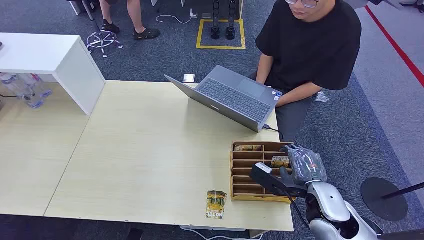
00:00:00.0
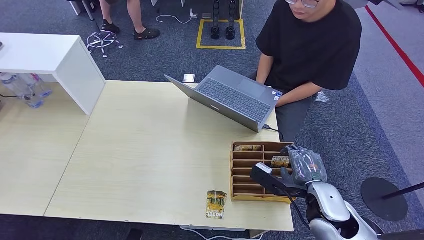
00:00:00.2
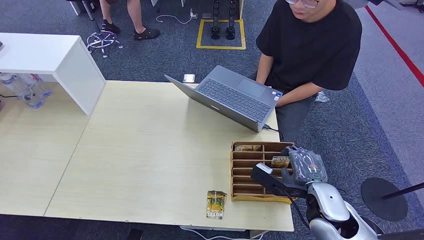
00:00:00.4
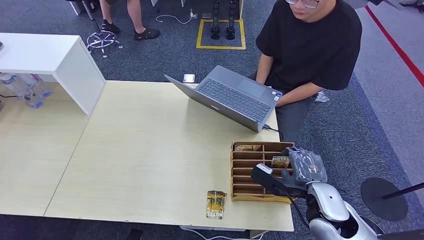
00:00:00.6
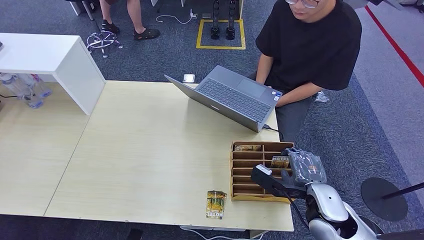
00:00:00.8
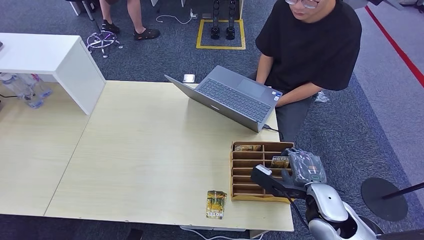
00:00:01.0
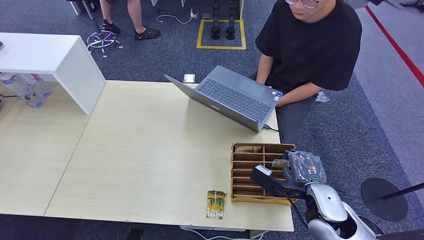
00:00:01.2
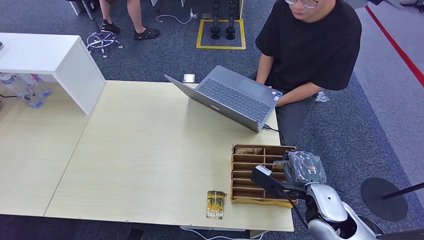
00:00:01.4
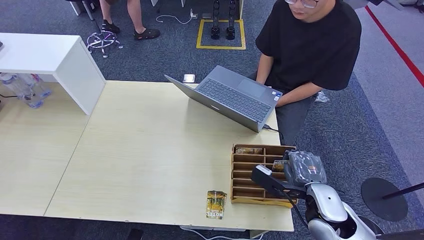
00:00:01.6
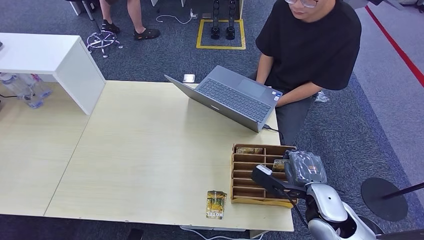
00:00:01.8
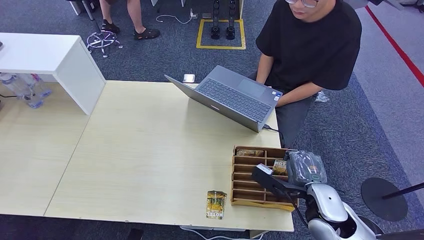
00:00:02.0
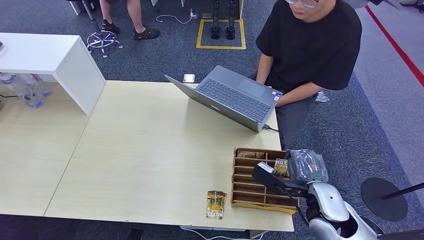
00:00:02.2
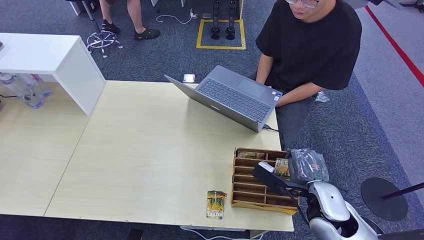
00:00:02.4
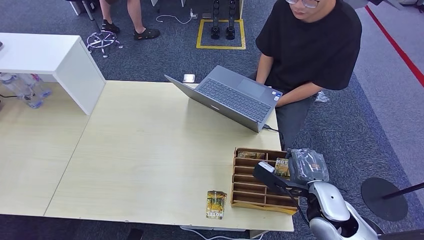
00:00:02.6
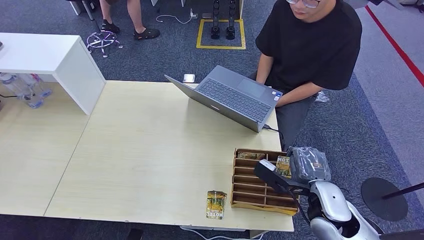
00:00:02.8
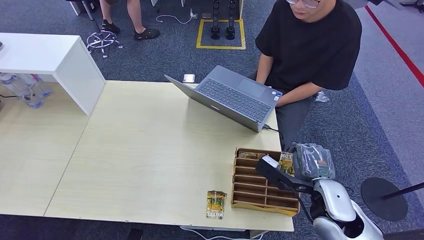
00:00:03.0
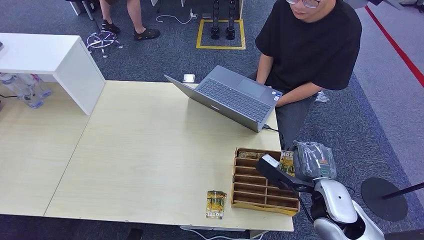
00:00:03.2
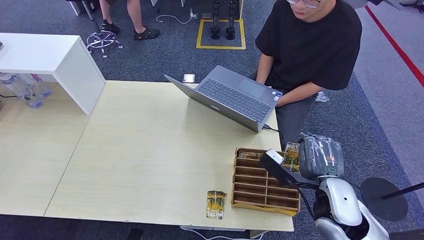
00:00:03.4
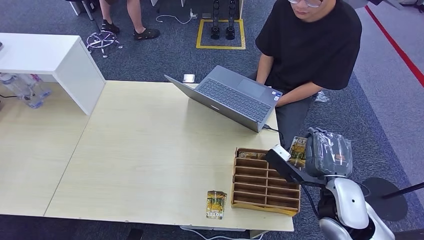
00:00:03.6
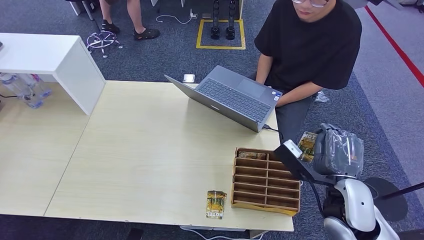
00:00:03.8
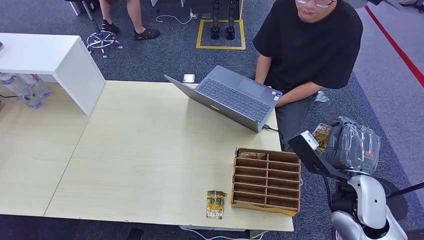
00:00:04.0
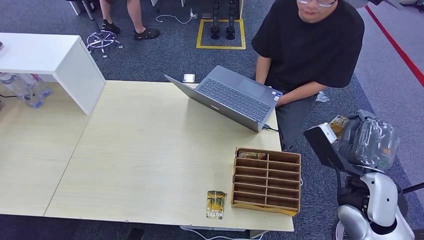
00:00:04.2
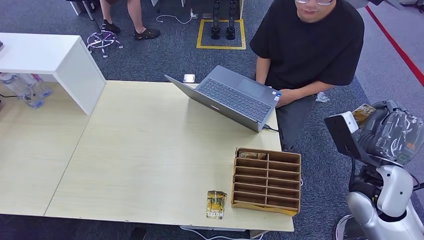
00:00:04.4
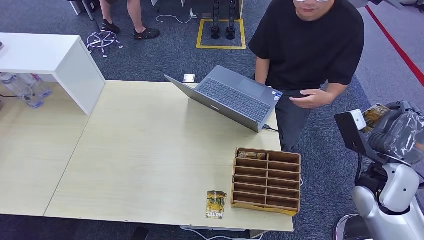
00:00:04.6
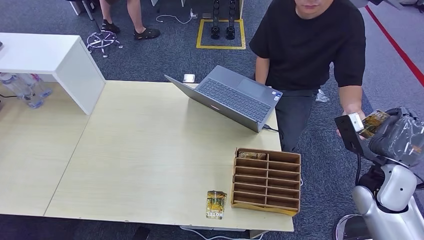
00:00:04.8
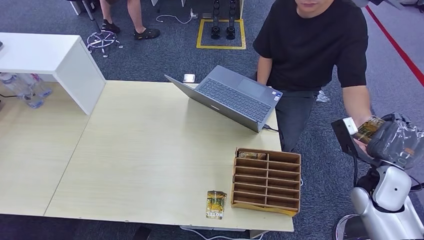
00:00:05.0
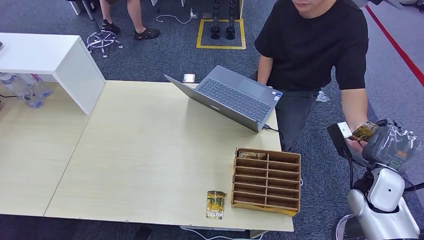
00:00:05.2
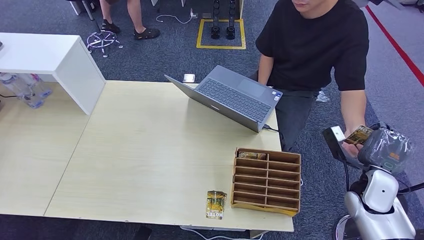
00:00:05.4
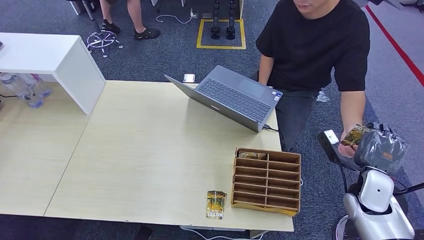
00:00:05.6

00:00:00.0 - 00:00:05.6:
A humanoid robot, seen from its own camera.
Step, 00:00:00.0 - 00:00:03.2: Pick up the room card from the card holder.
Step, 00:00:03.4 - 00:00:05.6: Hand the room card to the target.
00:00:01.4 - 00:00:02.8: Neither hand changes place.
00:00:02.8 - 00:00:04.2: The right hand shifts roughly 5 cm upward.
00:00:04.2 - 00:00:05.6: The right hand goes approximately 10 cm downward and to the right.

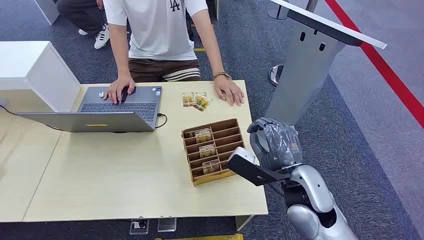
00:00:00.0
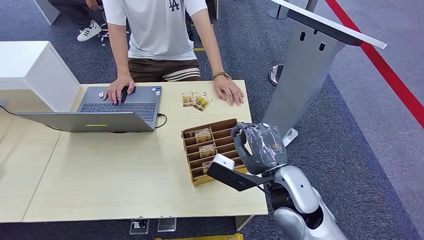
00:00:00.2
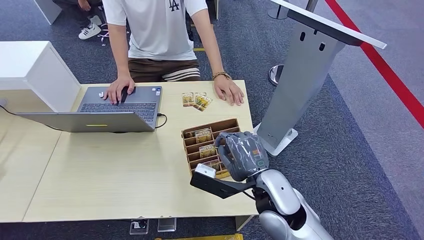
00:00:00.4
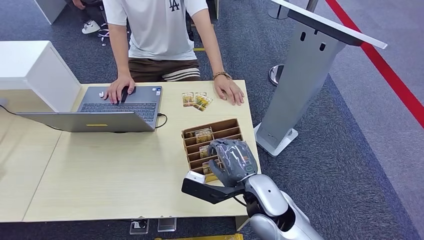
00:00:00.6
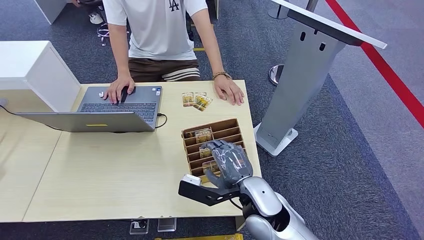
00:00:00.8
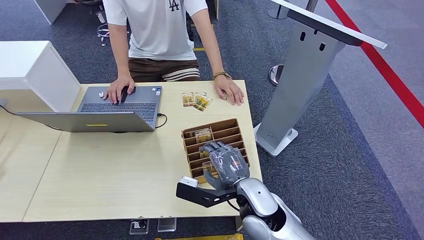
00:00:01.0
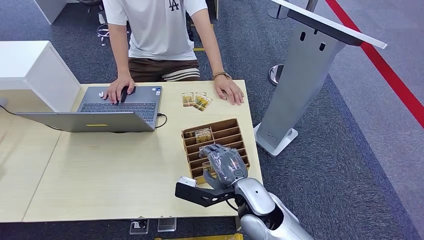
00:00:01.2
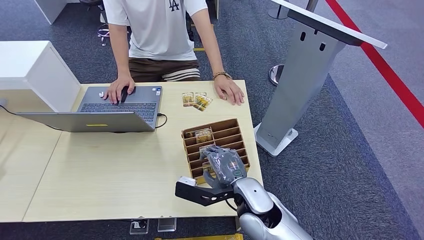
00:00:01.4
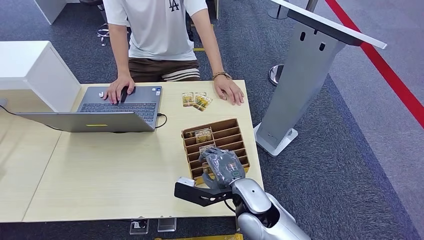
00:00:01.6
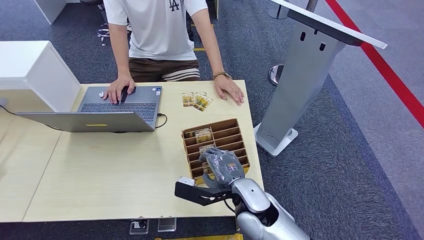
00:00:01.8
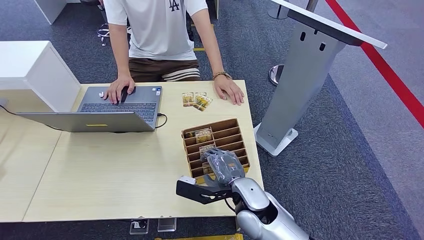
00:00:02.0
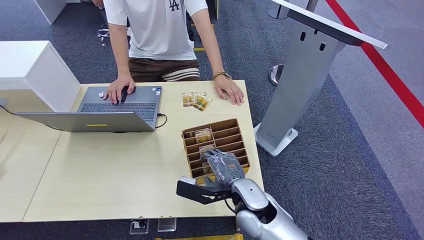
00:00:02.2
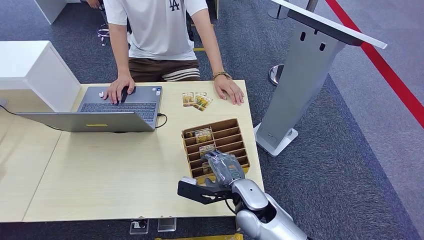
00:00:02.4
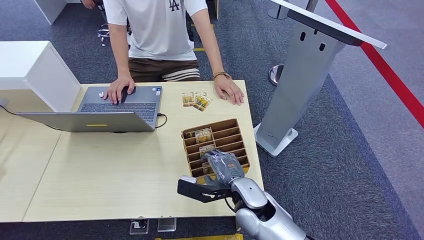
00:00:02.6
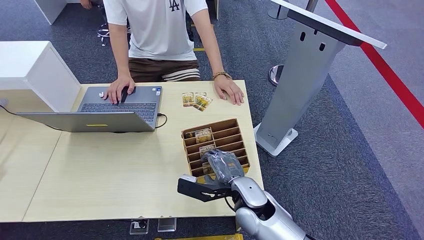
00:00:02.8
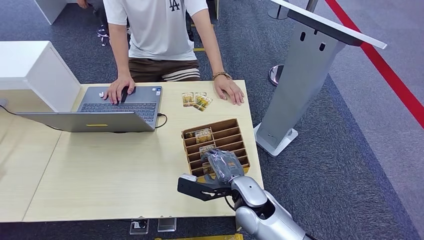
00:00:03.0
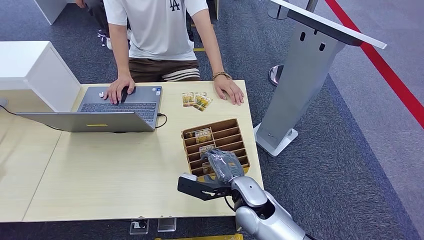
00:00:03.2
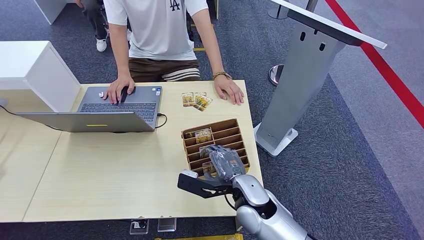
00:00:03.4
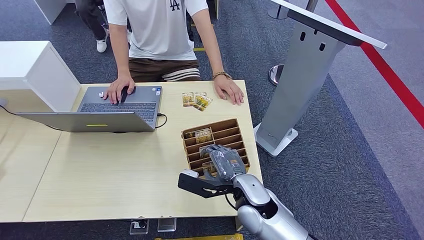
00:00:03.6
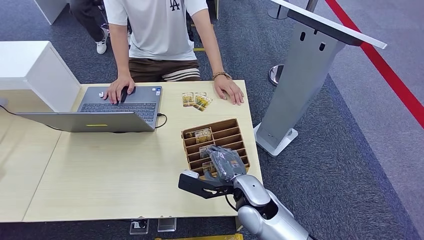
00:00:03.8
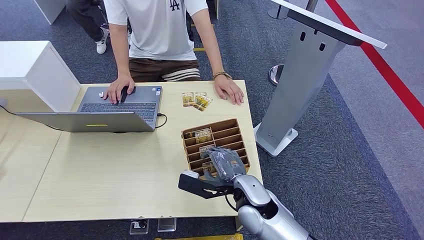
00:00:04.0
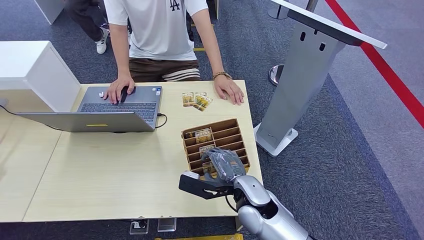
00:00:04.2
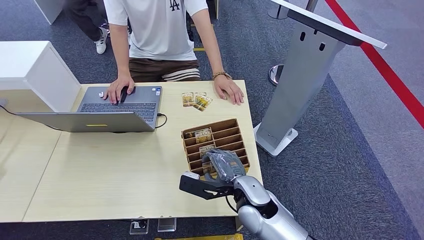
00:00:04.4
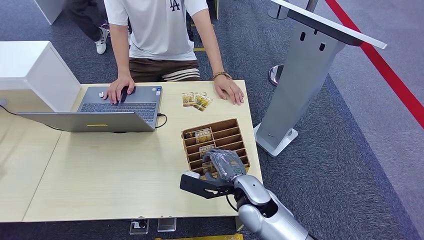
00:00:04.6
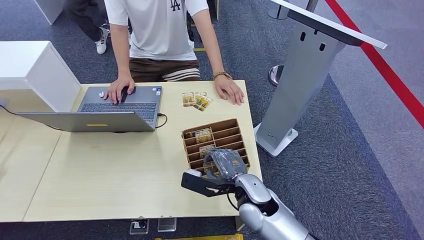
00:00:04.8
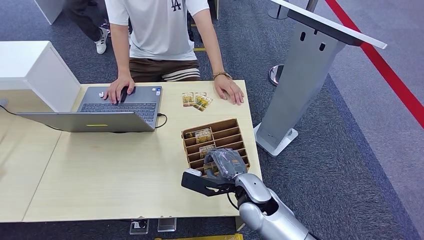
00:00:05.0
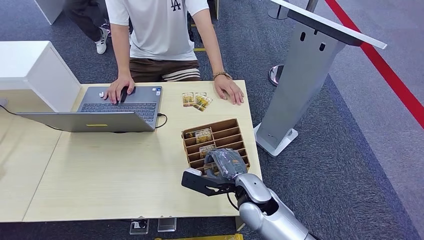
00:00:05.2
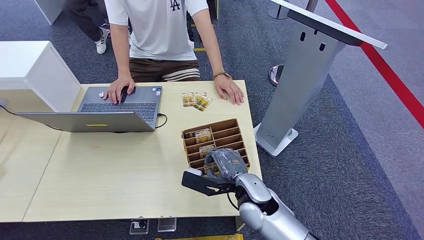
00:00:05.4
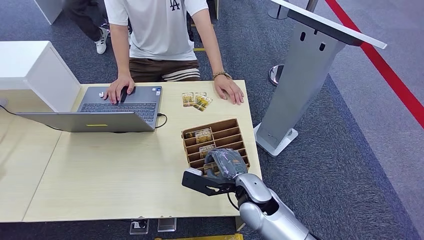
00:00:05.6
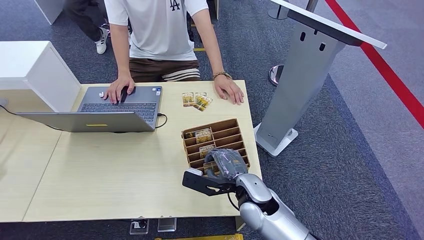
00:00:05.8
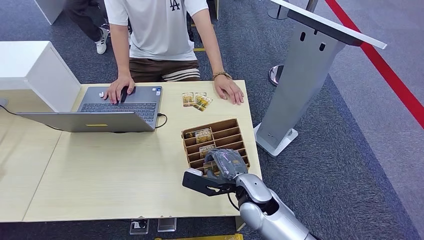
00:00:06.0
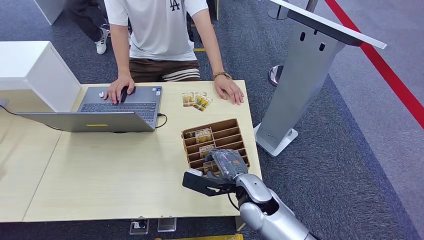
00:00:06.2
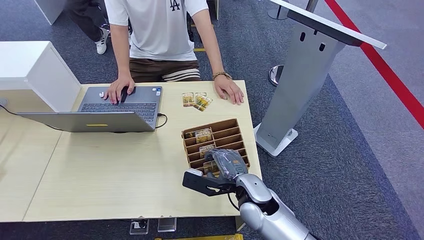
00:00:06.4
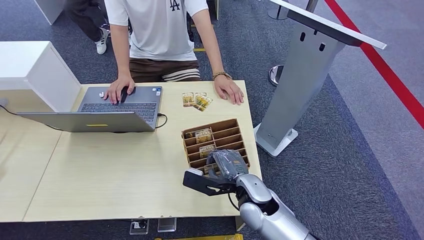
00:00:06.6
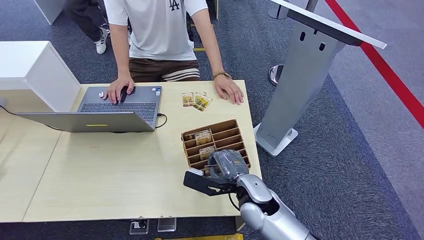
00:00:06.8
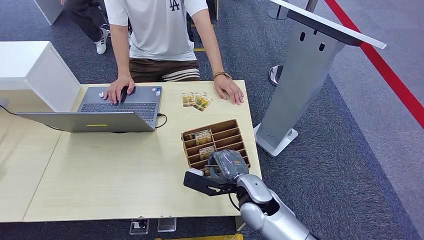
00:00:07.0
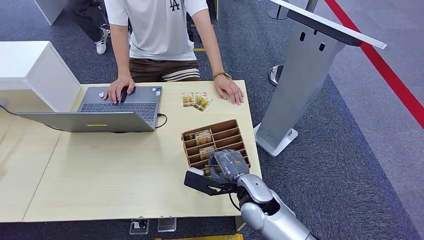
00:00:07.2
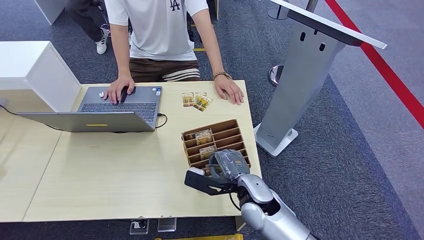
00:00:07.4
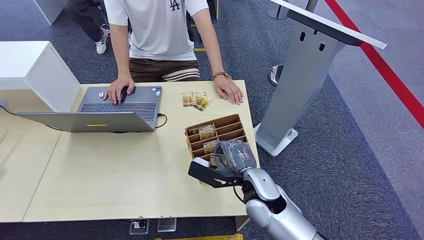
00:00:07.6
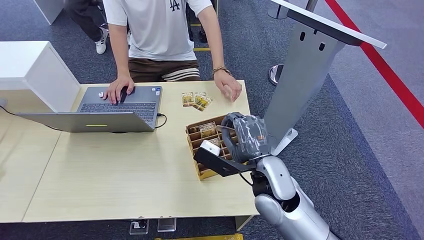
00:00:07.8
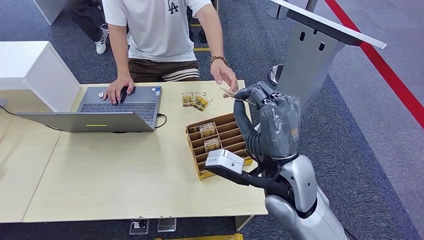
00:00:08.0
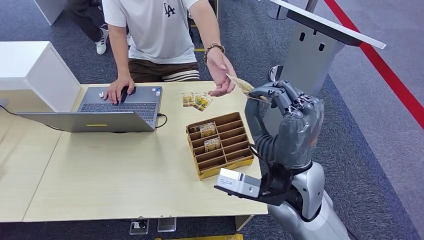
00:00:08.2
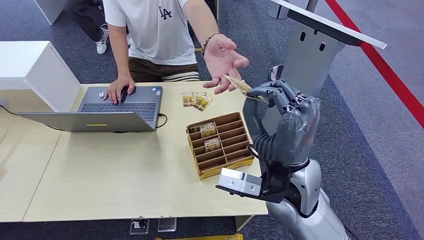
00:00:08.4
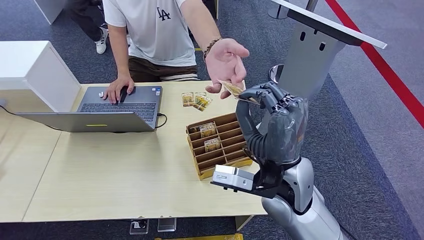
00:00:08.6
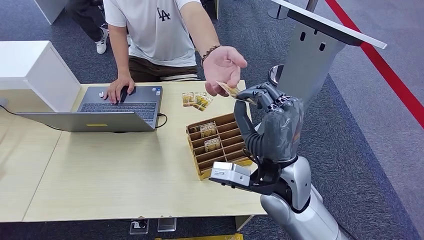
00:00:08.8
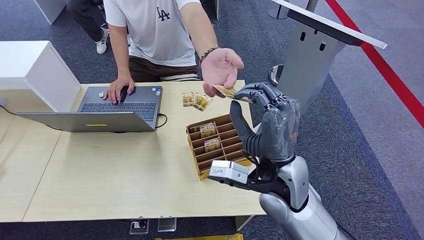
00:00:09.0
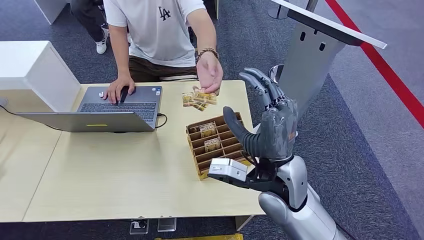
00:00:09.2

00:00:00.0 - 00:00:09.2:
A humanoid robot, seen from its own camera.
Step, 00:00:00.0 - 00:00:07.8: Pick up the room card from the card holder.
Step, 00:00:08.0 - 00:00:09.0: Hand the room card to the target.
00:00:01.6 - 00:00:04.6: Both hands stay put.
00:00:04.6 - 00:00:06.2: The two hands keep their place.
00:00:06.2 - 00:00:07.6: There are only small adjustments of the hands.
00:00:07.6 - 00:00:09.2: The right hand goes approximately 10 cm upward.

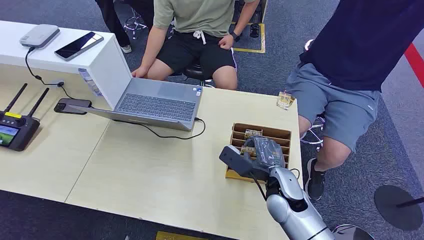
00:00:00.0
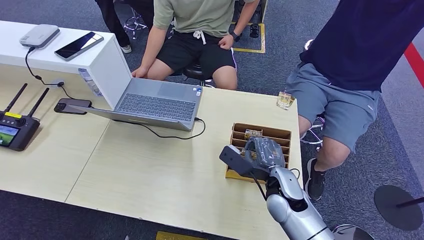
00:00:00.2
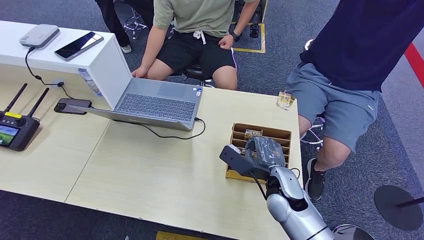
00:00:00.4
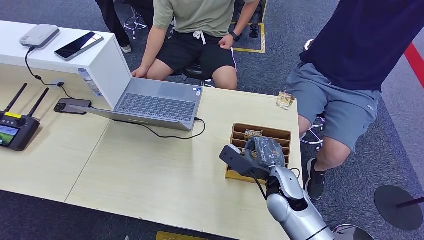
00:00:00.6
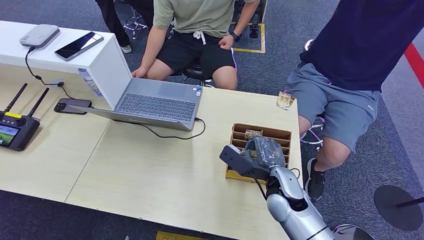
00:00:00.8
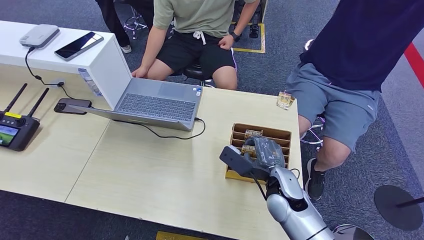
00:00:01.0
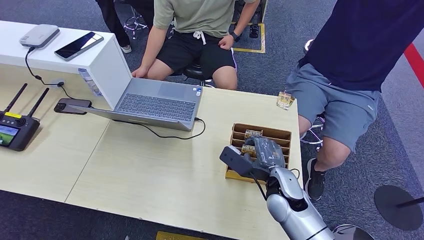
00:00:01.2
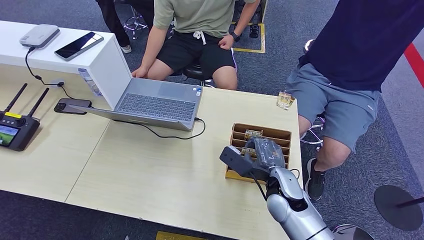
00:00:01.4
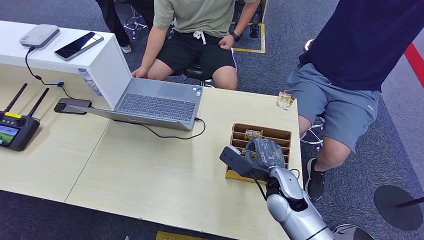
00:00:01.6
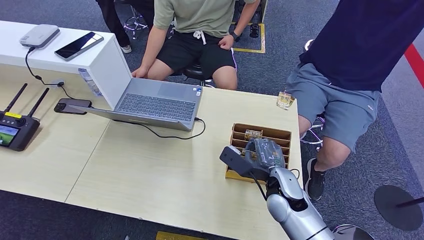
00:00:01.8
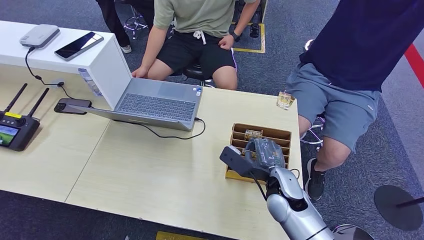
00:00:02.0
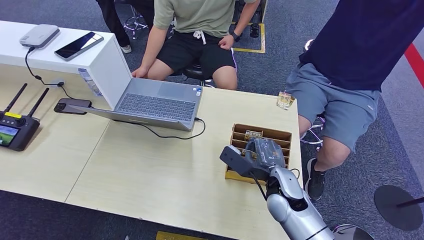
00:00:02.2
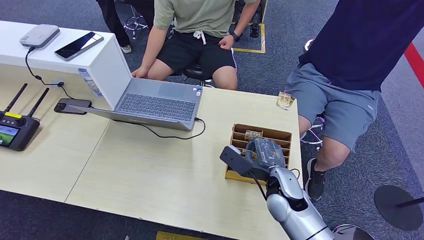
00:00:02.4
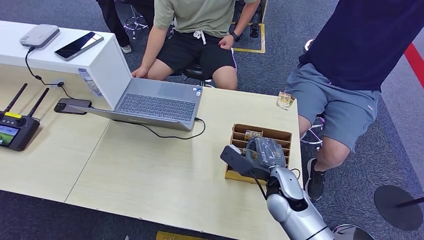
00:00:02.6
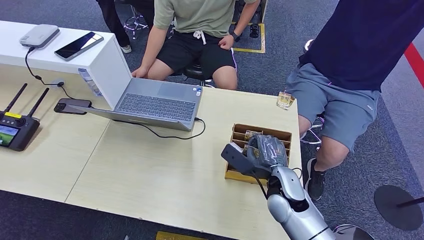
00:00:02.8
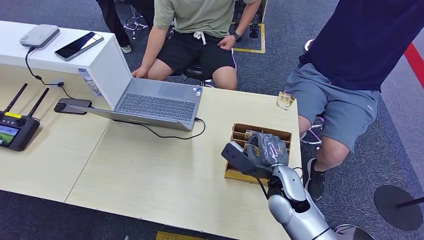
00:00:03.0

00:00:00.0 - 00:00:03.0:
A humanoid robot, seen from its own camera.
00:00:01.6 - 00:00:03.0: The hands stay close to where they were, moving slightly.
